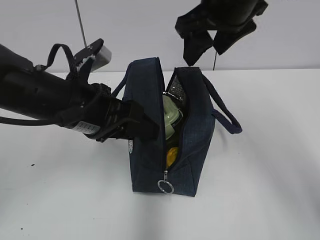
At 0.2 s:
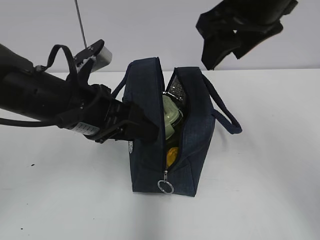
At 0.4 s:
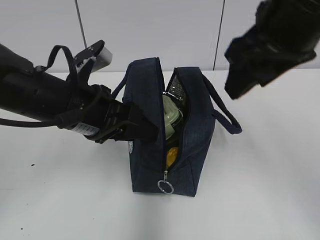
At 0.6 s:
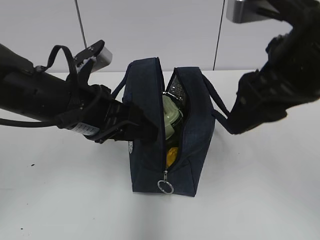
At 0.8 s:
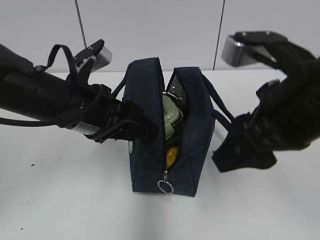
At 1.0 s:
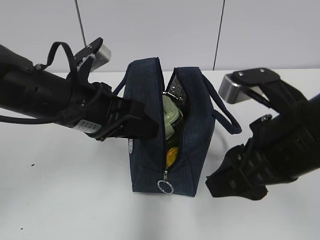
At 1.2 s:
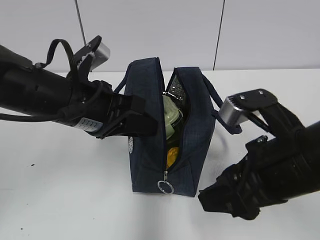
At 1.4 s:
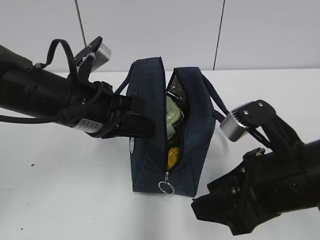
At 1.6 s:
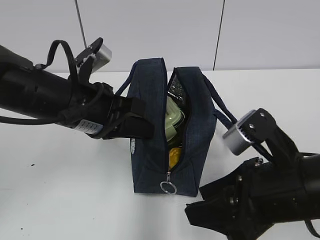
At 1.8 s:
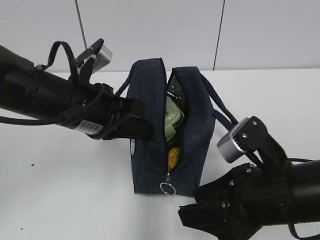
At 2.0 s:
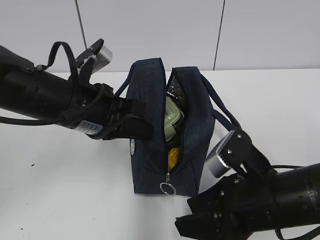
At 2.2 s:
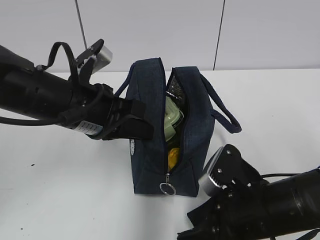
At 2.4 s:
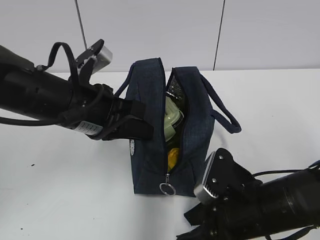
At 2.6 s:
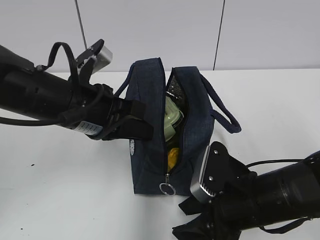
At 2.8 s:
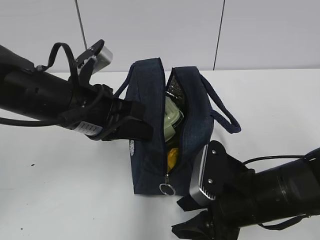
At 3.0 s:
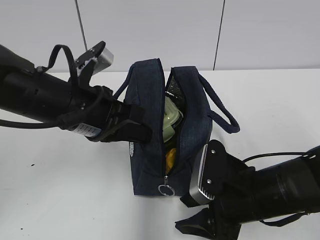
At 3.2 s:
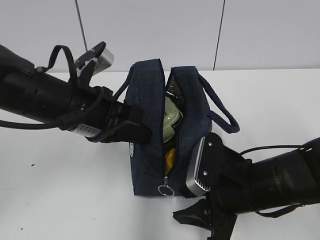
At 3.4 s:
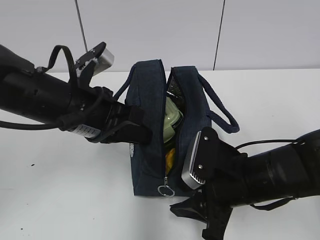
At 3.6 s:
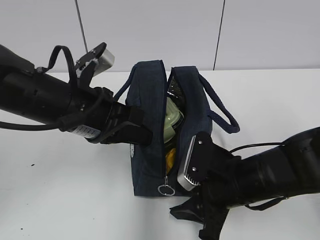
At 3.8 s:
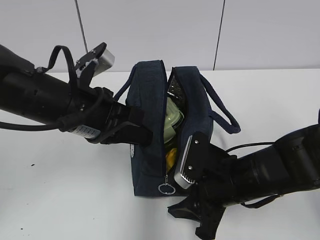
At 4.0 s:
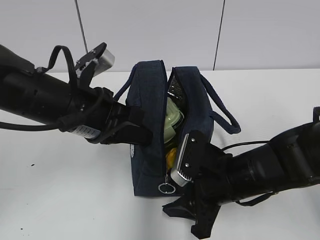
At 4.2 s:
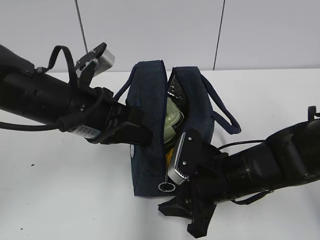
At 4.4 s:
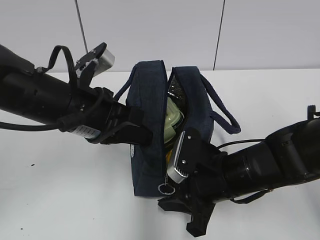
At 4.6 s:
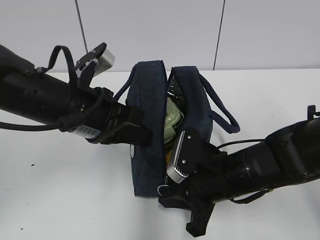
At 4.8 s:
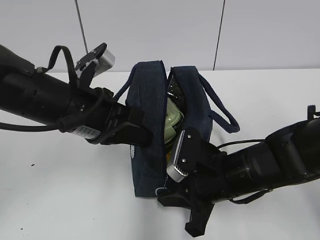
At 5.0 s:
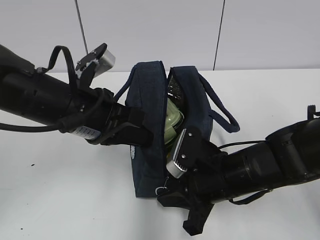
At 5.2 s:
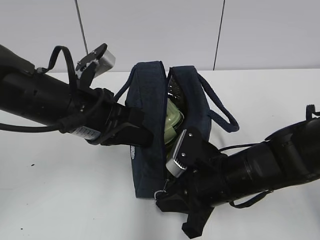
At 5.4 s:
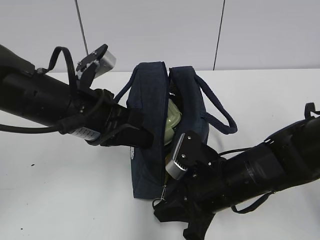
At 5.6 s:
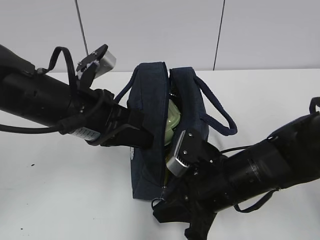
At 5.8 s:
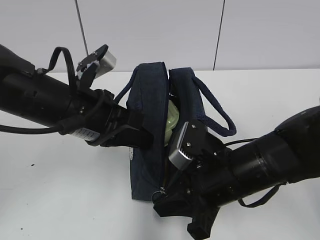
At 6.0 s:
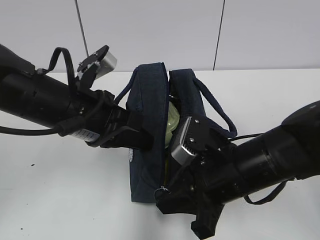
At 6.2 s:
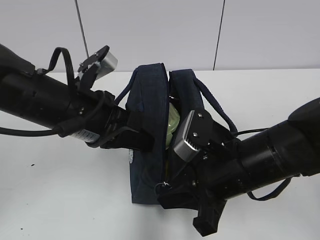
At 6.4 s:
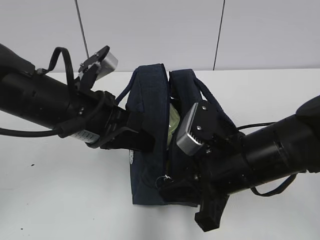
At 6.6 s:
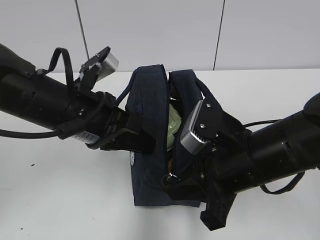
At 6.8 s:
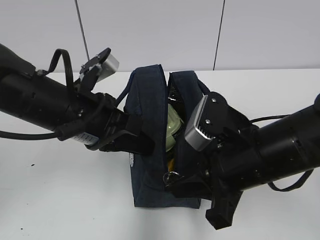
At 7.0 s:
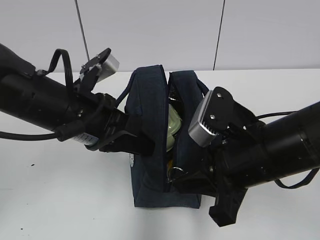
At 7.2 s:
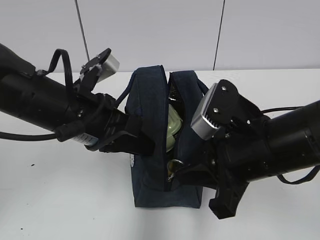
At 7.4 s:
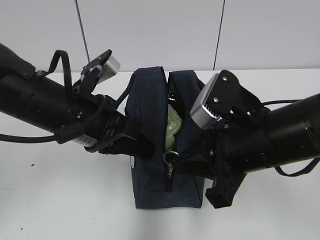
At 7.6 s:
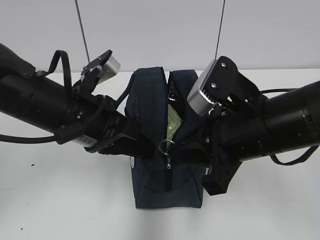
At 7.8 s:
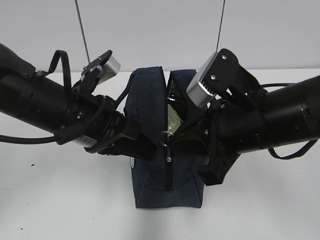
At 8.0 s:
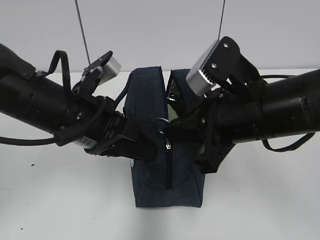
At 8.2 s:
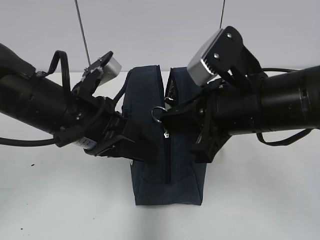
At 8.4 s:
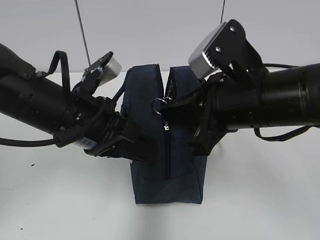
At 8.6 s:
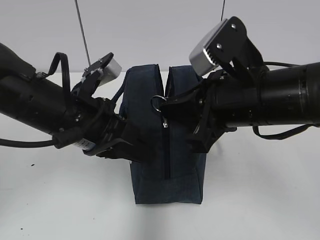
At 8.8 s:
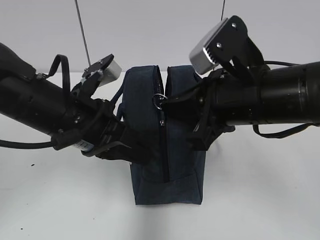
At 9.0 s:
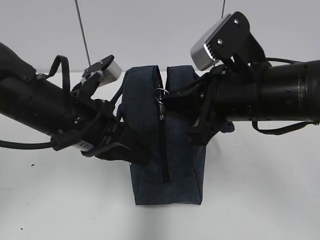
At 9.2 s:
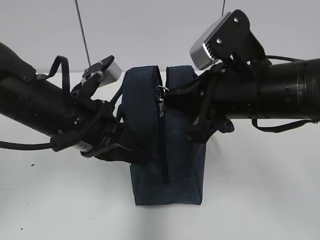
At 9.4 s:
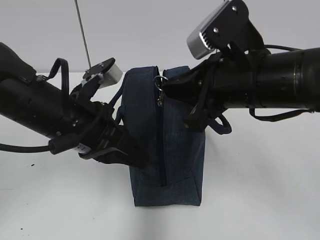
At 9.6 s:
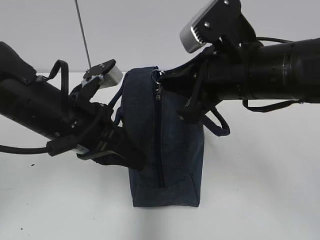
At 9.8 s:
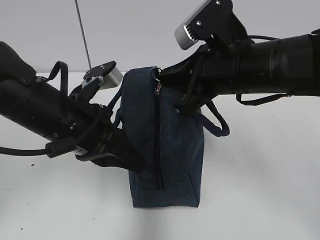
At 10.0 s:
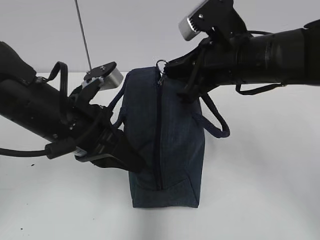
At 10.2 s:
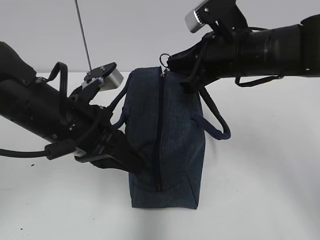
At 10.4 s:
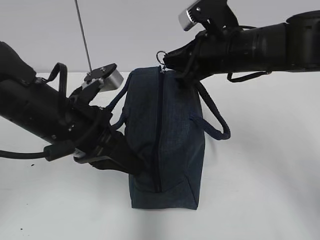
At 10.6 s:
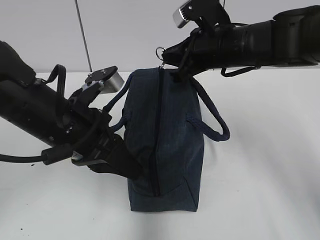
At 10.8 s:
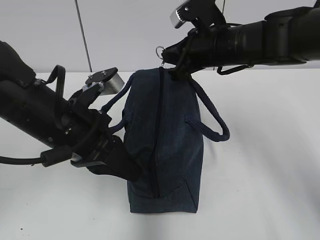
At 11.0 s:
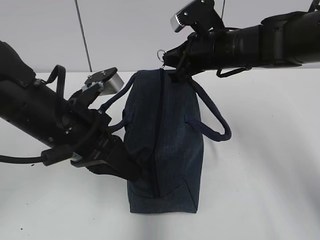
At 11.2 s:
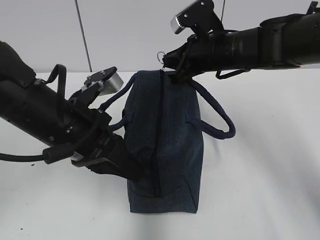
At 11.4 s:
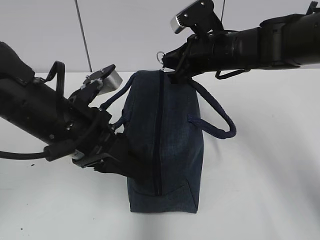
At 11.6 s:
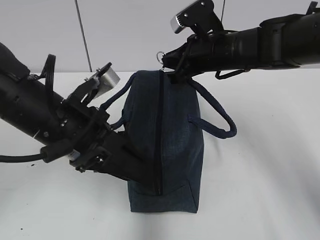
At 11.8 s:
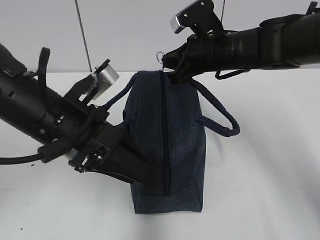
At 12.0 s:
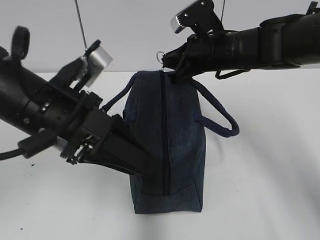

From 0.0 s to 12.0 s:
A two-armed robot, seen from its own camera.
From 0.0 s to 1.6 s: The right gripper shifts about 25 cm backward and downward, while the left gripper closes up.
From 1.6 s to 3.0 s: The right gripper goes some 5 cm downward.
From 3.0 s to 4.4 s: There are only small adjustments of the grippers.
From 4.4 s to 6.0 s: The right gripper ends up some 5 cm from where it was, and closes its fingers.
From 6.0 s to 7.6 s: The right gripper shifts about 5 cm upward.
From 9.0 s to 10.4 s: The right gripper is displaced forward by approximately 10 cm.
From 10.4 s to 12.0 s: The left gripper opens up, while the right gripper ends up roughly 5 cm from where it was.

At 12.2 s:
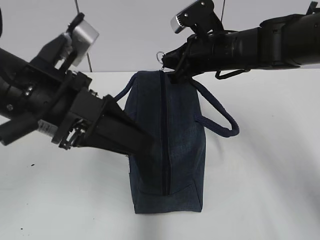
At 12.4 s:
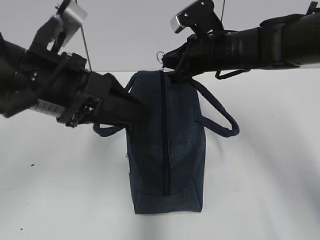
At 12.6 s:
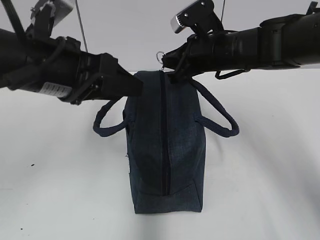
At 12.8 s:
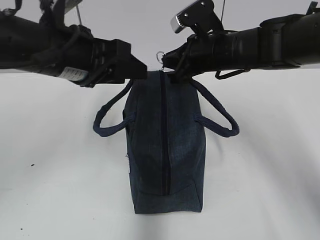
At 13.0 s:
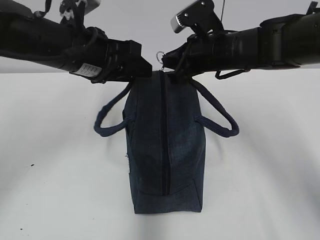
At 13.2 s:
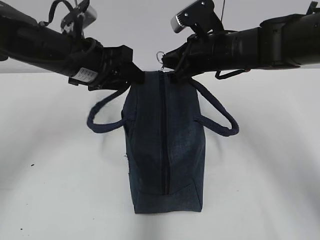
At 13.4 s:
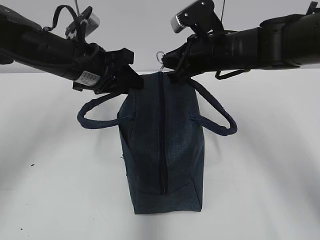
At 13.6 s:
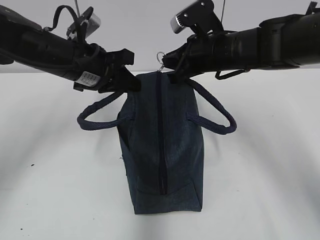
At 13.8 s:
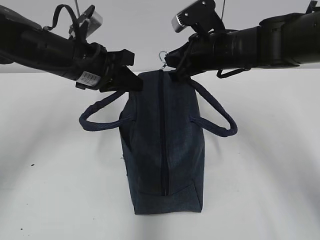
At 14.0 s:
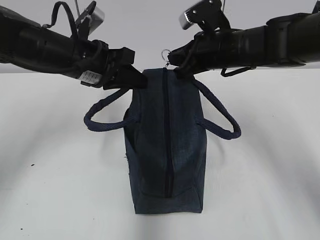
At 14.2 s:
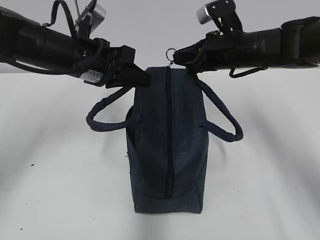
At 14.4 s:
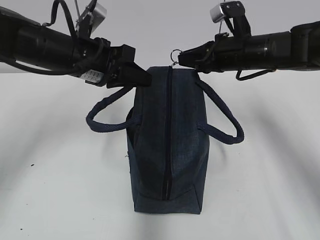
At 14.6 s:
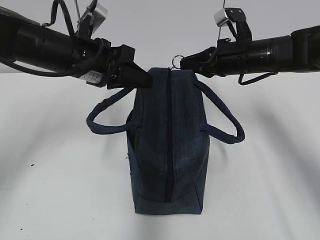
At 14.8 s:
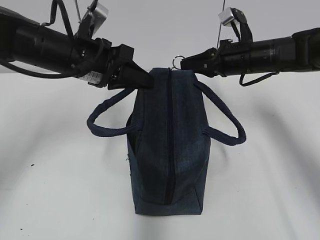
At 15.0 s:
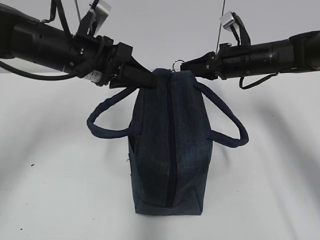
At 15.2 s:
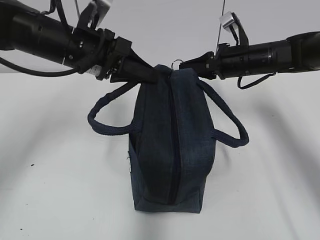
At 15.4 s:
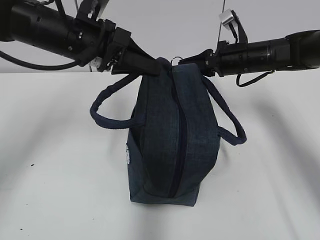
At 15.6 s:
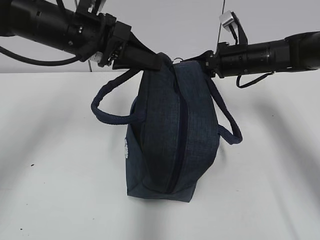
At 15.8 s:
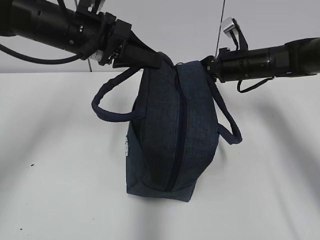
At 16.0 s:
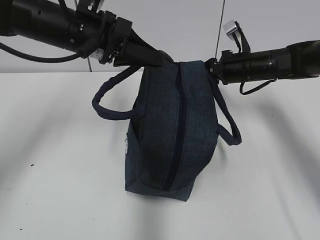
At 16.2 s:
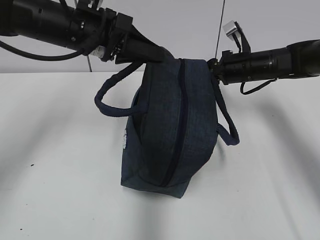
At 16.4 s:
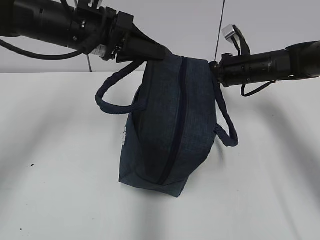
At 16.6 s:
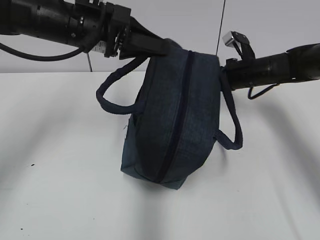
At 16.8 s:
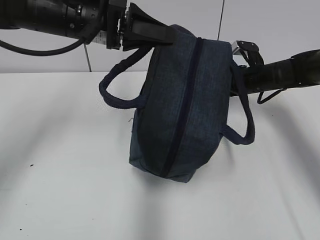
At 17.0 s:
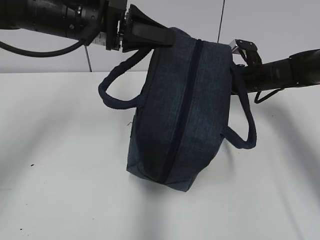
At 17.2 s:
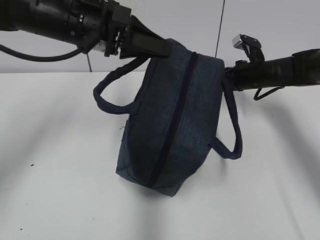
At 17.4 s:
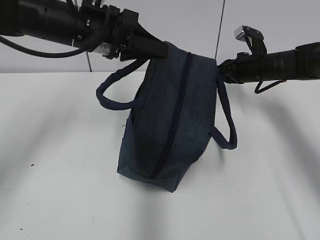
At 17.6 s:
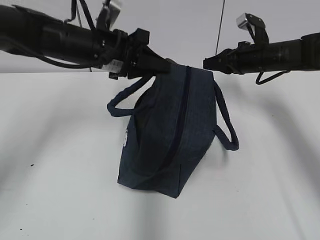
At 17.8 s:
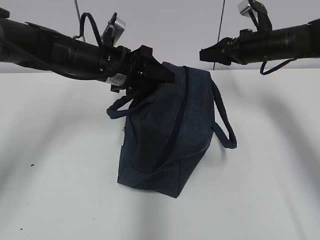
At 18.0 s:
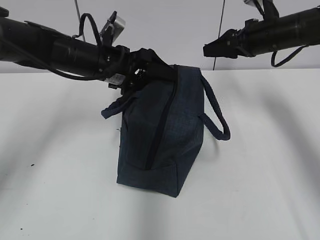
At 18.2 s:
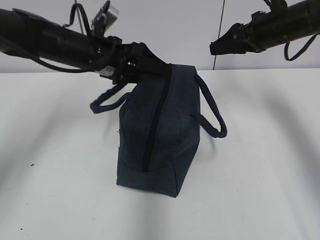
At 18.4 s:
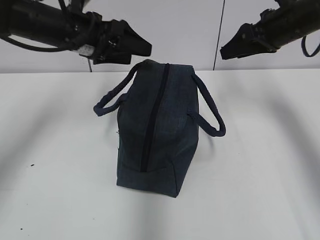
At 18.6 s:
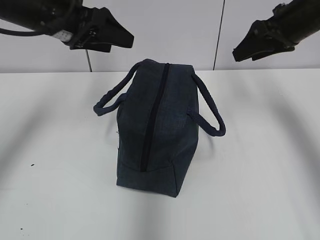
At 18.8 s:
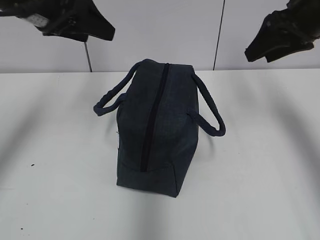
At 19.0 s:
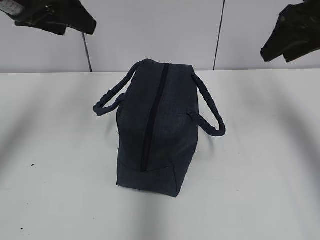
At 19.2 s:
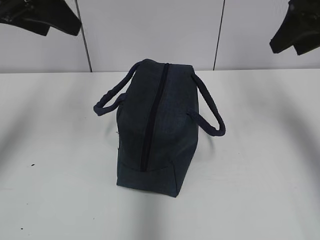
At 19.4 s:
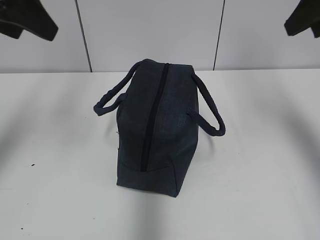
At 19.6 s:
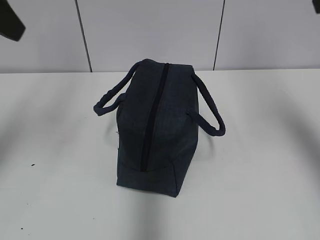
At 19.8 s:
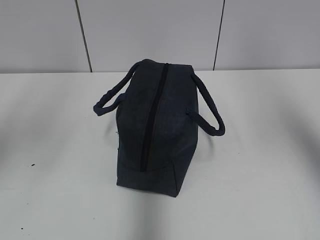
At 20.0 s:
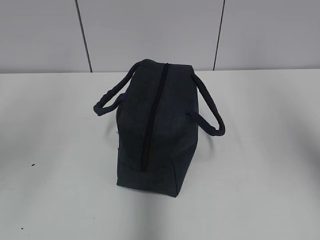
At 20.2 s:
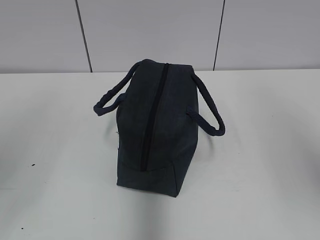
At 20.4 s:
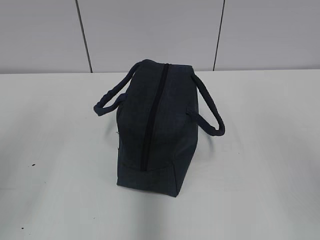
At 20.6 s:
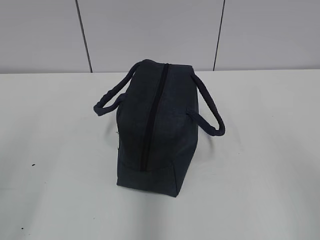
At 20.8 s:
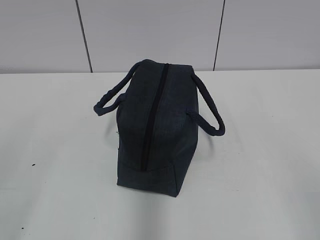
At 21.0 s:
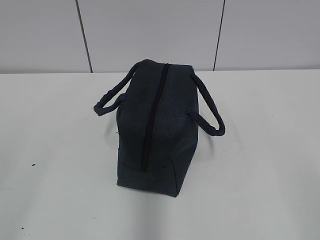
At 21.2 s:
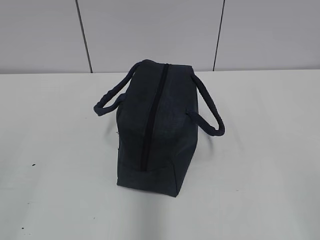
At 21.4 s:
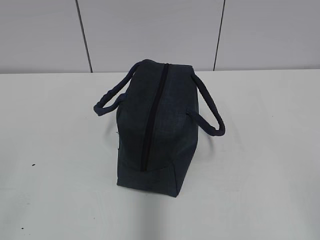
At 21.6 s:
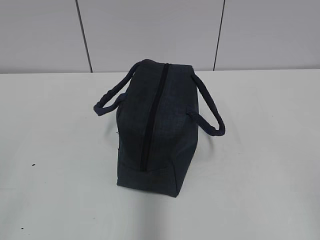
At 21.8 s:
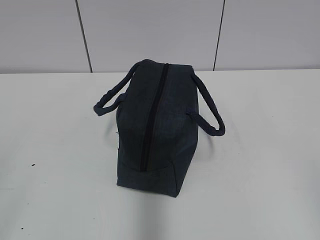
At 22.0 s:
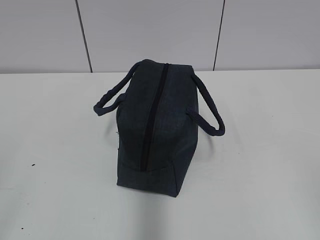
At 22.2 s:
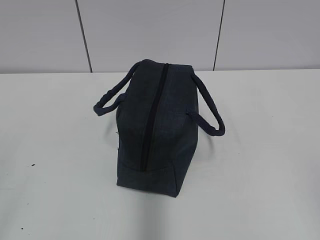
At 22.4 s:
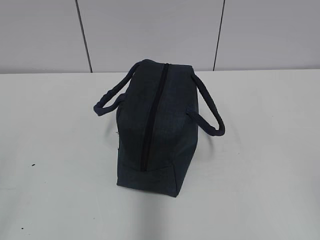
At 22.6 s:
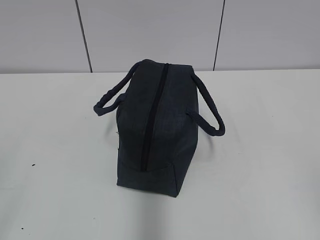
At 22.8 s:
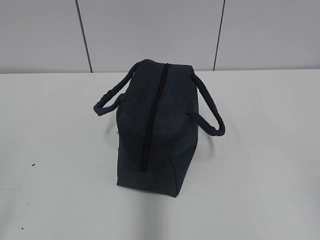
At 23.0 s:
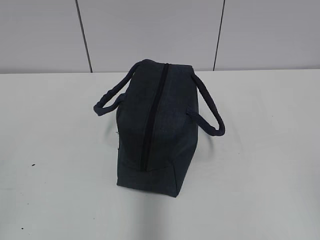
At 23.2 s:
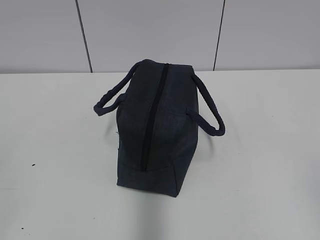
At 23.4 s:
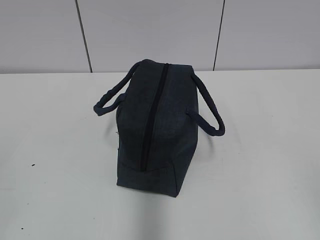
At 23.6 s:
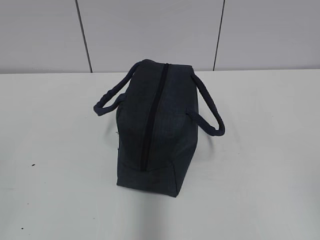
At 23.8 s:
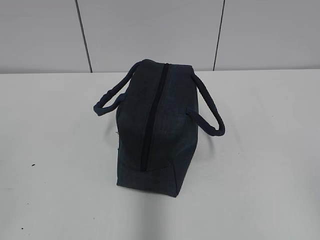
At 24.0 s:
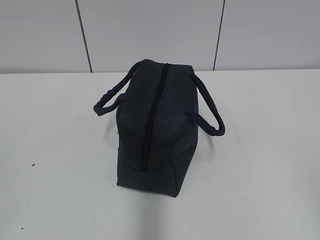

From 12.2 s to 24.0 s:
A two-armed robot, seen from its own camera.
Step, from 12.2 s to 17.0 s: Pull the zipper with your right hand.
Step, from 17.2 s to 17.8 s: Grab the lunch bag with your left hand.
From 12.2 s to 13.6 s: The left gripper travels forward by roughly 15 cm, and closes its fingers.
From 13.6 s to 15.2 s: The right gripper is displaced to the right by approximately 10 cm.
From 15.2 s to 16.6 s: The right gripper changes place by roughly 5 cm.
From 16.6 s to 18.2 s: The right gripper shifts about 10 cm upward, and opens. Meanwhile the left gripper heads downward, covering about 5 cm, and opens its fingers.
From 18.2 s to 19.6 s: The right gripper is displaced backward and upward by about 25 cm. The left gripper travels upward, backward and to the left by some 25 cm.
From 19.6 s to 21.0 s: The grippers both shift backward and downward by approximately 30 cm.
